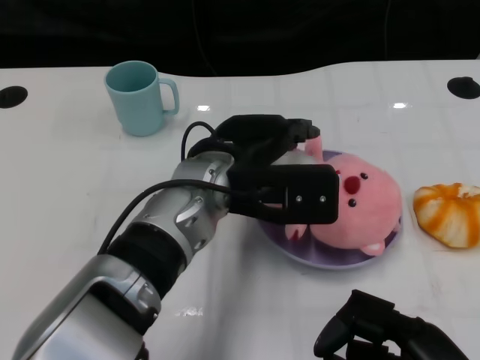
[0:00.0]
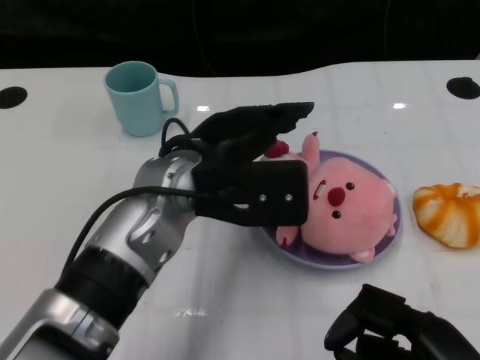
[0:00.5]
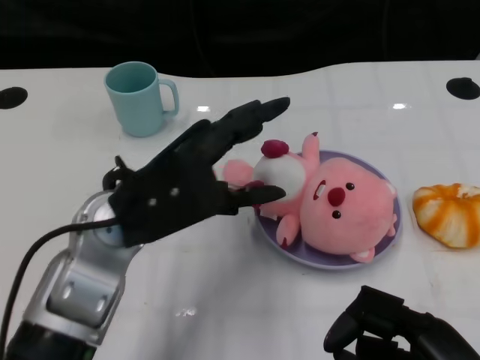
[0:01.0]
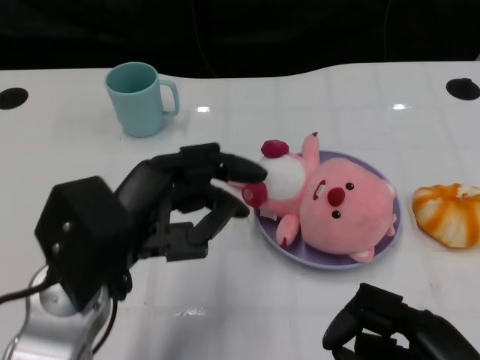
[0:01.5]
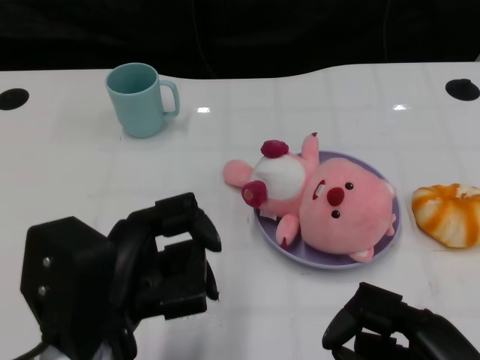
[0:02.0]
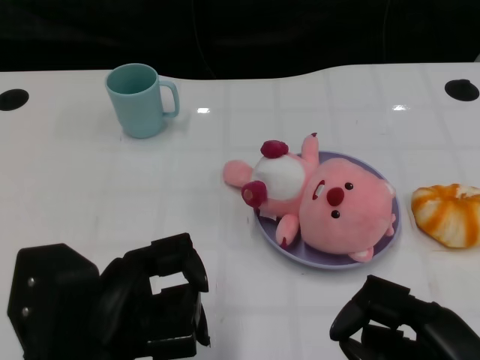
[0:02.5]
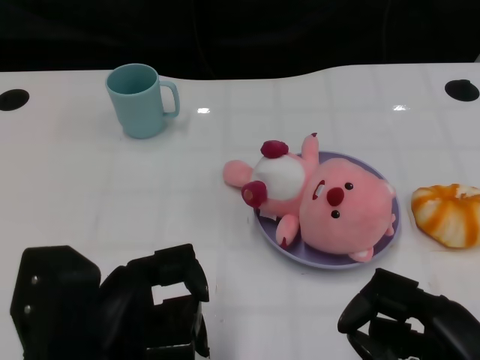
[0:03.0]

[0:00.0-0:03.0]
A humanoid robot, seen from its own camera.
Task of the whole recording: Pick up the doll on one side of the plate and place it into the plate.
0:00.0 to 0:01.5: The left hand is displaced to the left and backward by roughly 15 cm.
0:01.5 to 0:03.0: The left hand heads backward, covering about 5 cm.

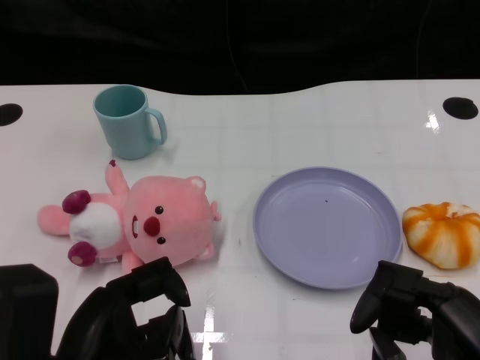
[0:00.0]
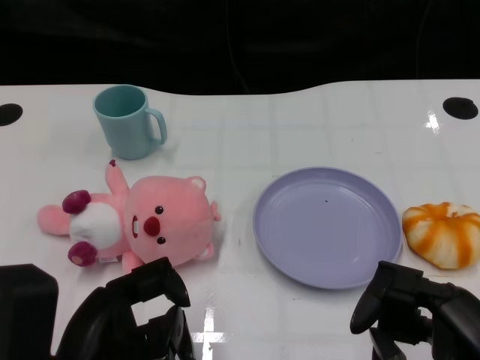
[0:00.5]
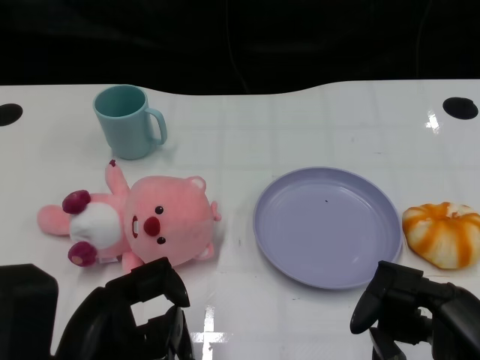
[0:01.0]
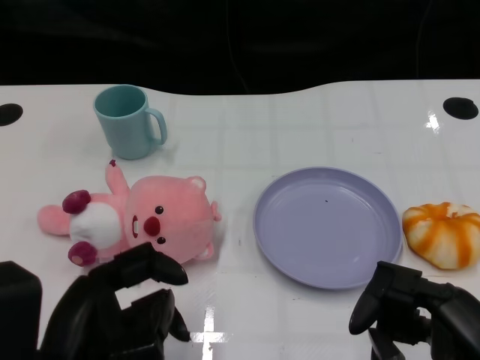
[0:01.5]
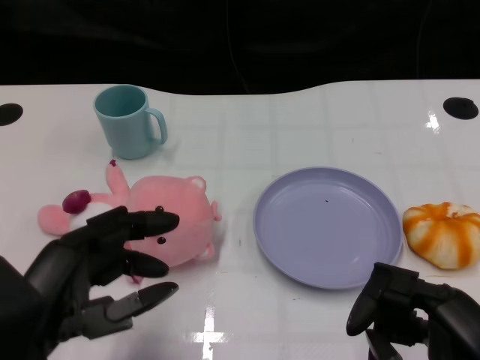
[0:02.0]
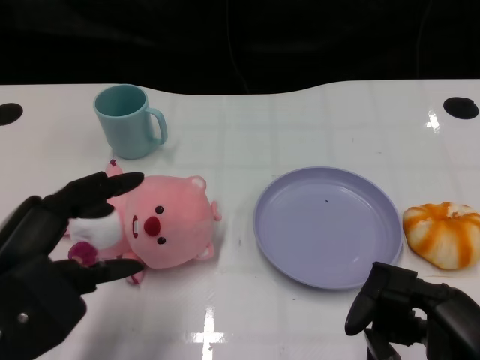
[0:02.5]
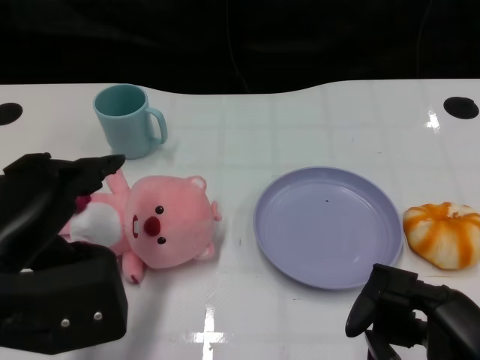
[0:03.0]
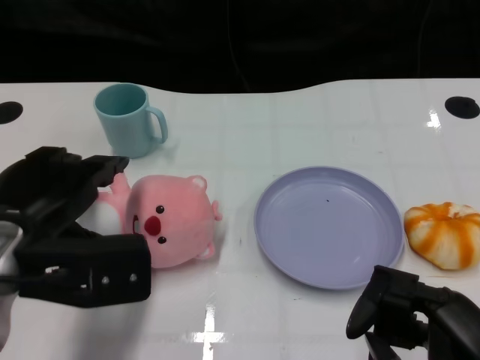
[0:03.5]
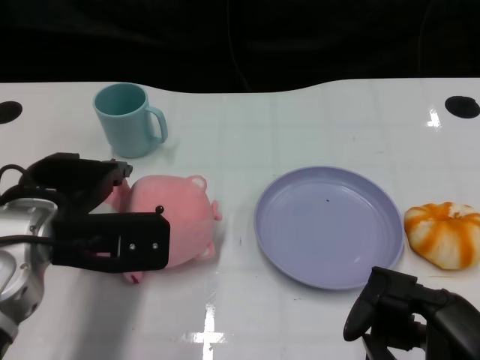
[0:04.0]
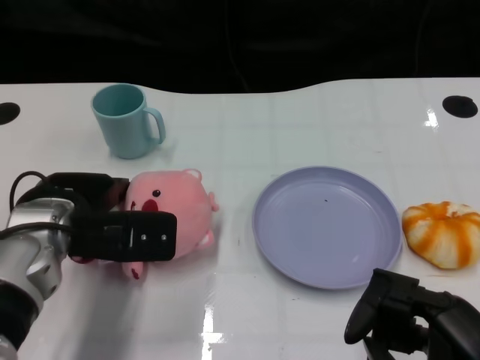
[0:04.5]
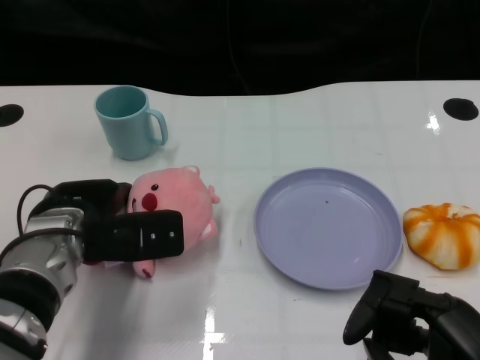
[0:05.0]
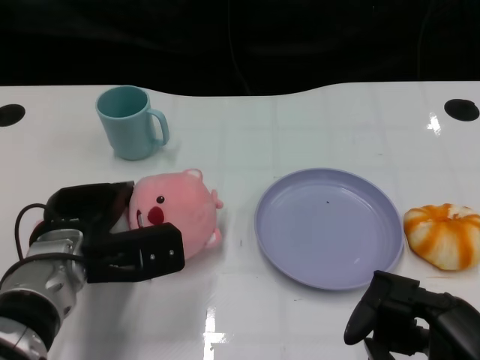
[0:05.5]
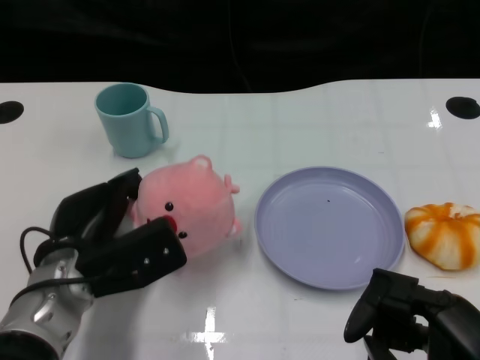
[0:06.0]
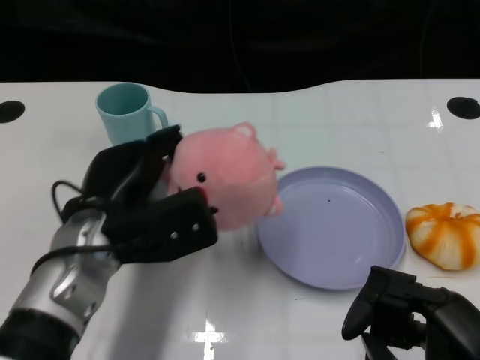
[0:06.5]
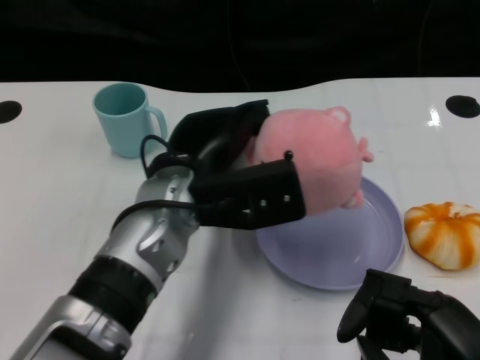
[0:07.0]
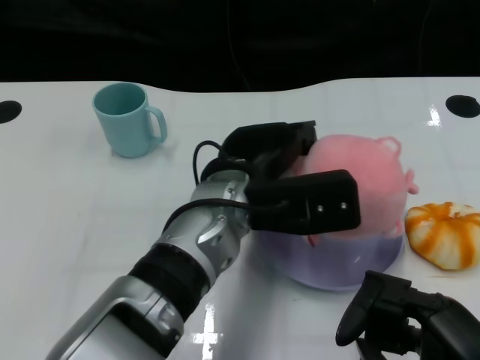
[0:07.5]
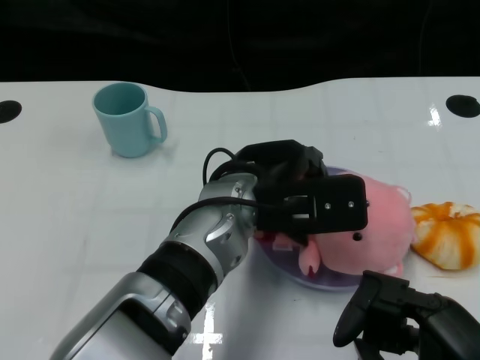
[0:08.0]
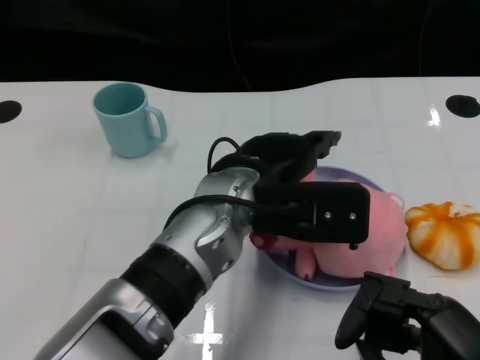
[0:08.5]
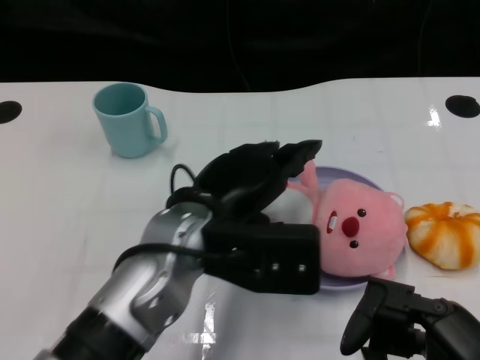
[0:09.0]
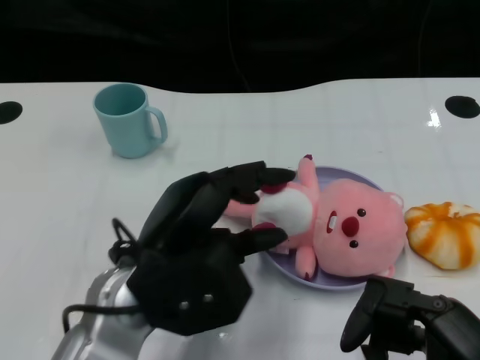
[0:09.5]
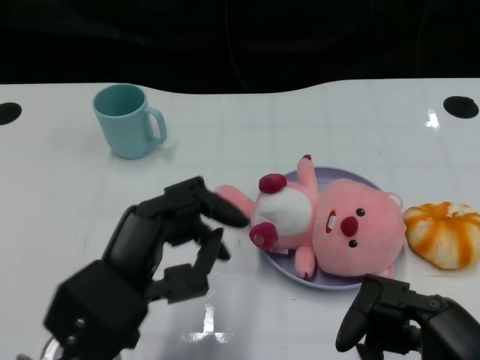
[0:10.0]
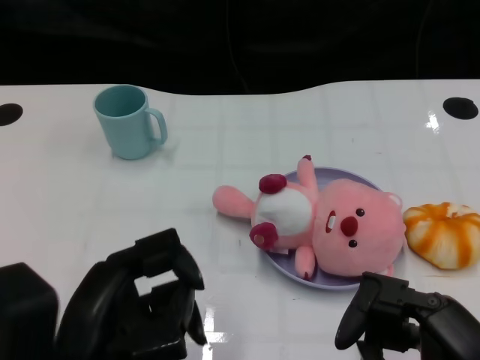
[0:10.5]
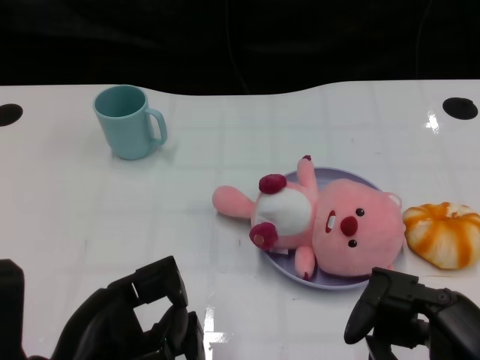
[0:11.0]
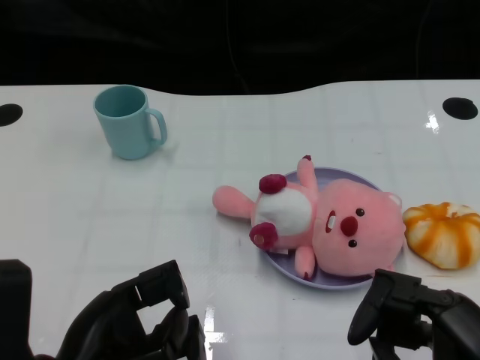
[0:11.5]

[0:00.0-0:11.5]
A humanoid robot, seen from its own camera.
Task of the whole recording: Pick up the doll on one side of the plate and place it into the plate.
Step, 0:01.5 to 0:05.5: Grasp the pink doll with the left gripper.
Step, 0:06.5 to 0:08.5: Place the pink doll into the plate with the left gripper.
0:02.0 to 0:04.0: The left hand moves forward, approximately 15 cm.
0:04.0 to 0:06.0: The left hand shifts some 10 cm downward.
0:06.0 to 0:07.5: The left hand goes approximately 20 cm to the right and upward.
0:07.5 to 0:09.5: The left hand travels to the left and backward by roughly 10 cm.
0:09.5 to 0:11.5: The left hand is displaced backward and to the left by some 10 cm.

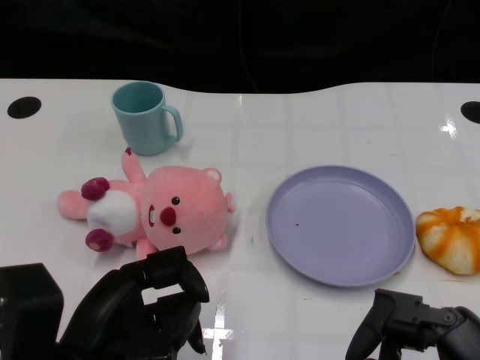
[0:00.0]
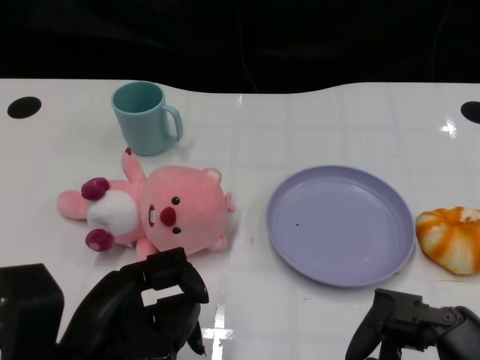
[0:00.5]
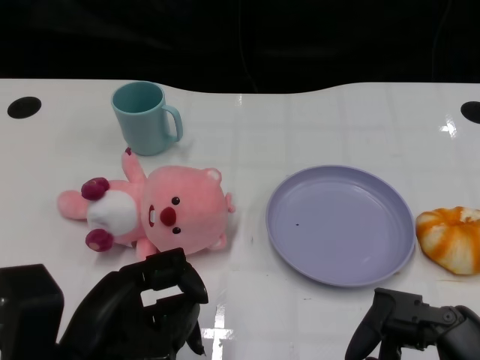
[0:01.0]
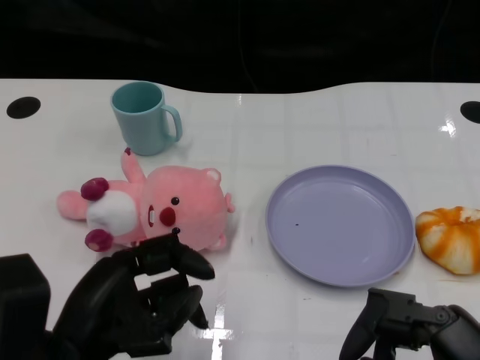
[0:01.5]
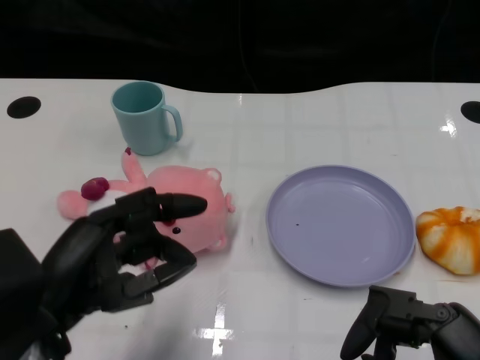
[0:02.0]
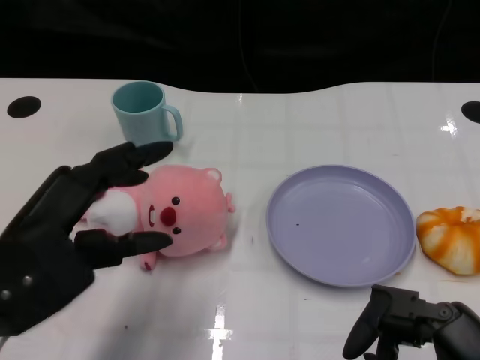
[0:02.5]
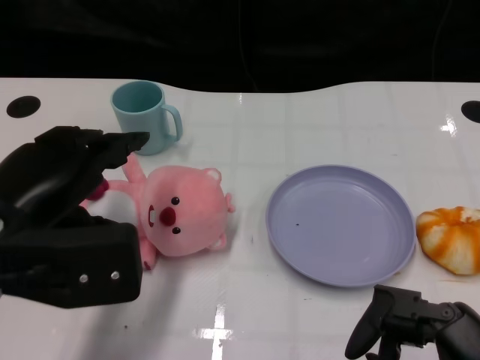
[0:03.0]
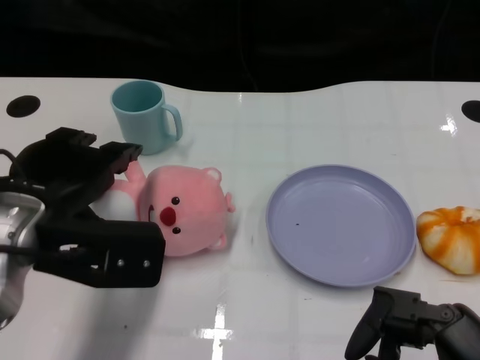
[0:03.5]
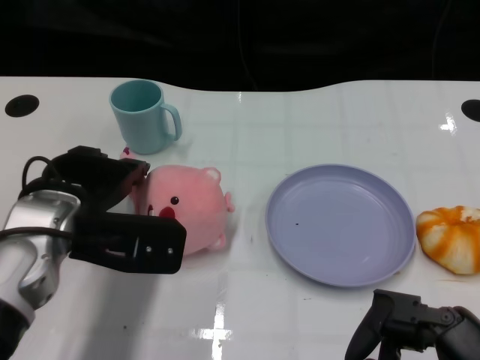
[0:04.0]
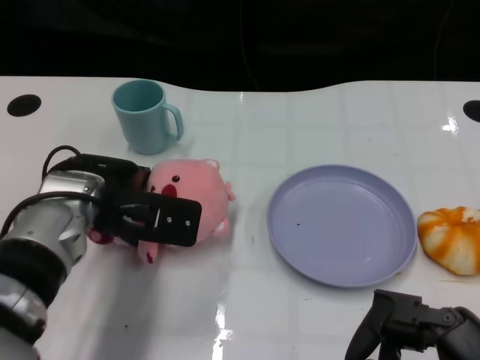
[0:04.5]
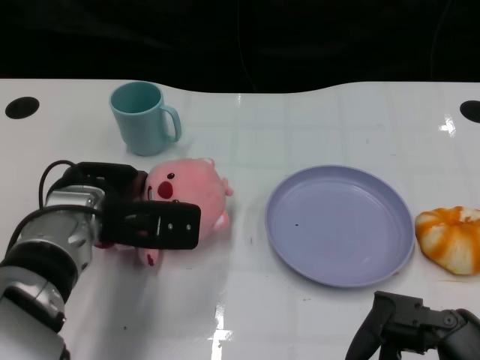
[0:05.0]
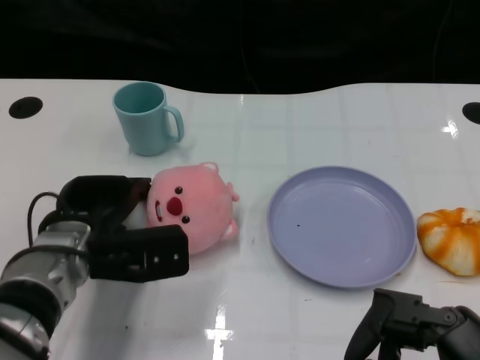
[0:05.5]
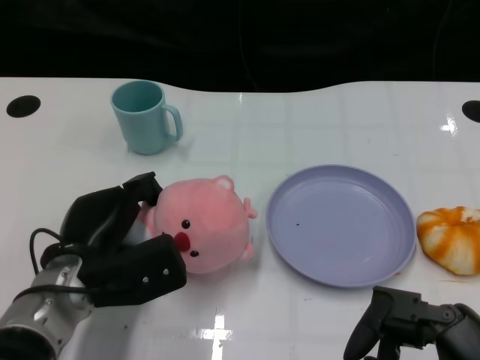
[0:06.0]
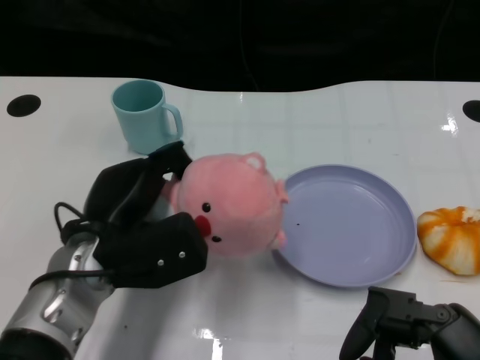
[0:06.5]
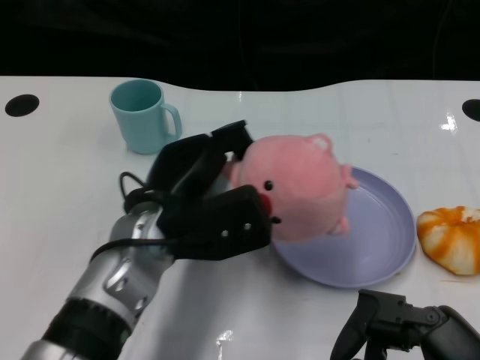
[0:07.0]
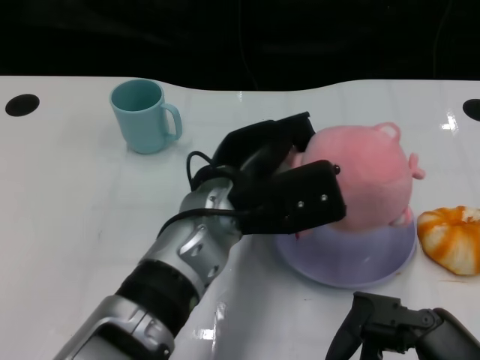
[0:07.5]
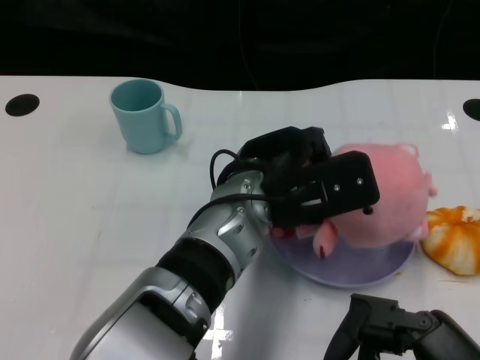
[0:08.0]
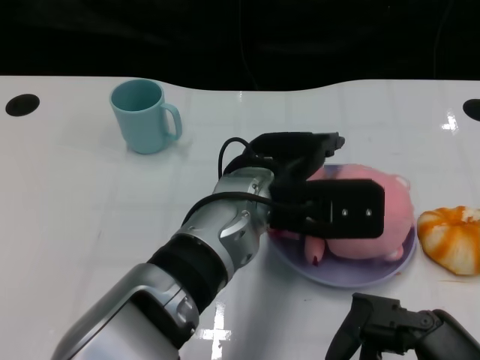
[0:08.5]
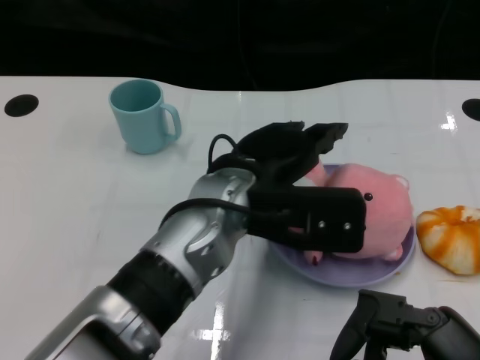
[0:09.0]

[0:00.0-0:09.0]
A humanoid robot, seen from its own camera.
Task of the whole recording: Pick up the doll on one side of the plate and place it into the plate.
Step, 0:01.5 to 0:05.5: Grasp the pink doll with the left gripper.
Step, 0:06.0 to 0:08.5: Place the pink doll into the plate with the left gripper.
0:02.0 to 0:04.5: The left hand travels forward by about 15 cm.
0:04.5 to 0:07.0: The left hand heads to the right, covering about 5 cm.
0:07.0 to 0:09.0: The left hand heads to the right, covering roughly 5 cm.

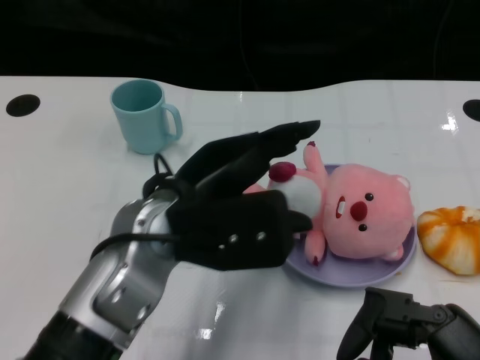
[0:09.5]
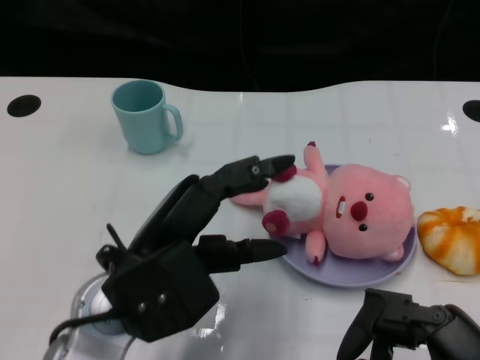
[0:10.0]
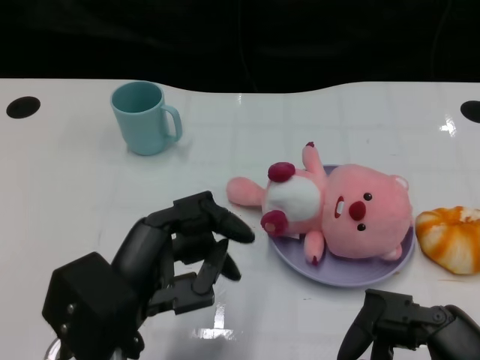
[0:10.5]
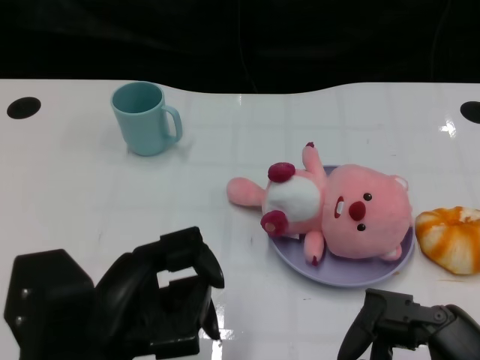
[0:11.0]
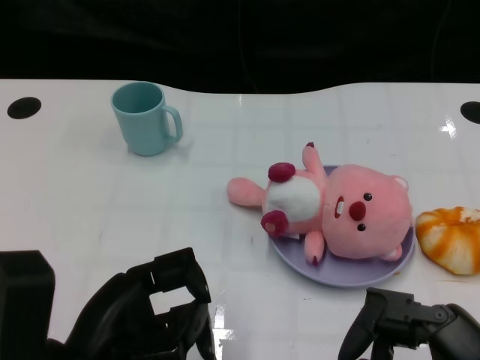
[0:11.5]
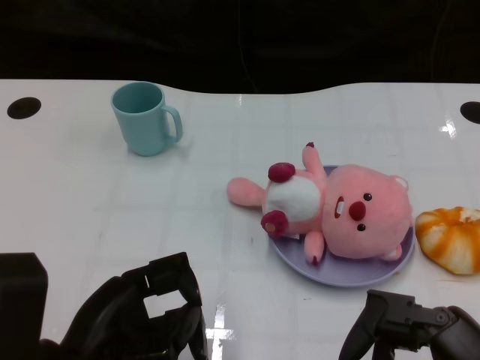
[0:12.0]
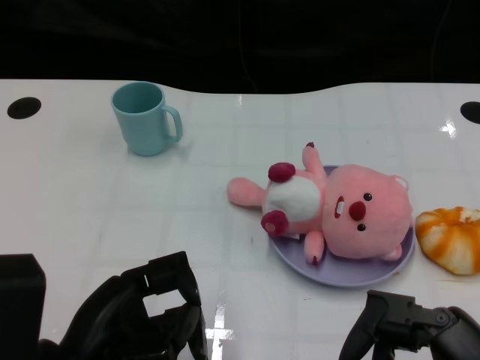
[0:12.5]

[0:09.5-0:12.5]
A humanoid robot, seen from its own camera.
Task of the whole recording: Pick up the doll on one side of the plate and place it into the plate.
0:09.5 to 0:11.0: The left hand heads backward and to the left, covering about 15 cm.
0:11.0 to 0:12.5: There are only small adjustments of the hands.
